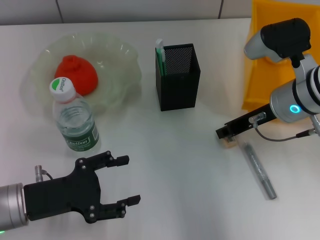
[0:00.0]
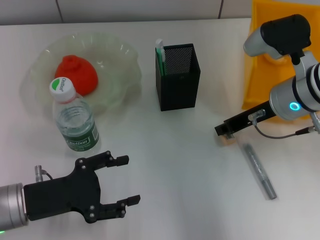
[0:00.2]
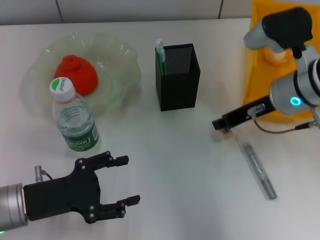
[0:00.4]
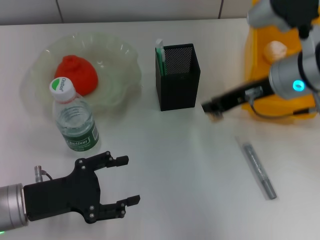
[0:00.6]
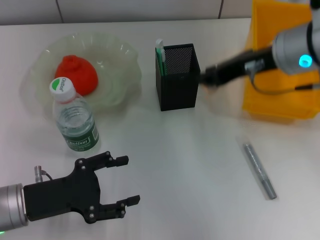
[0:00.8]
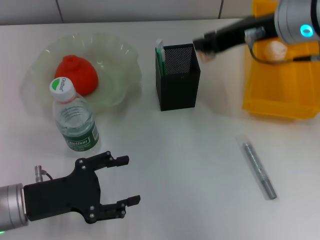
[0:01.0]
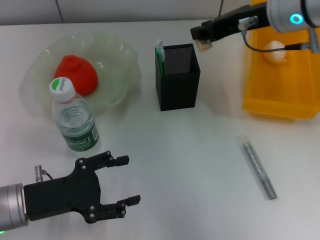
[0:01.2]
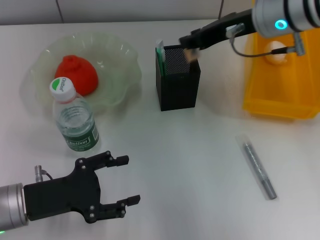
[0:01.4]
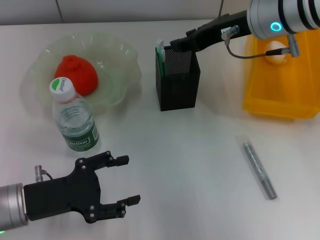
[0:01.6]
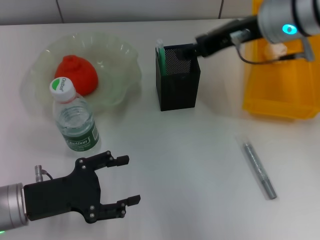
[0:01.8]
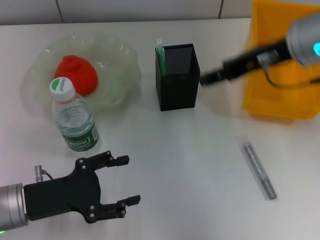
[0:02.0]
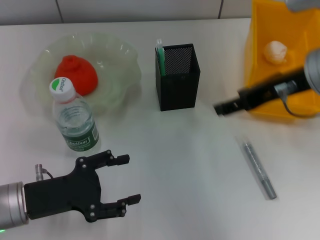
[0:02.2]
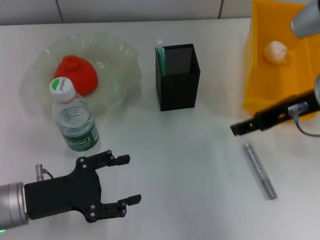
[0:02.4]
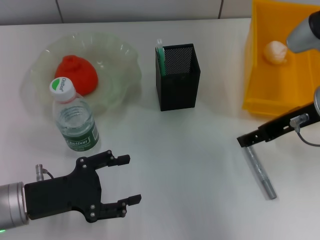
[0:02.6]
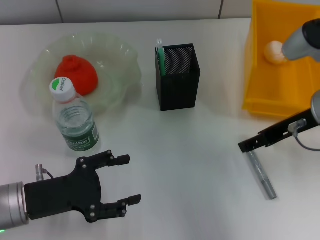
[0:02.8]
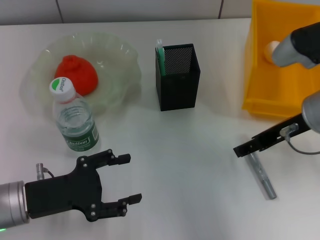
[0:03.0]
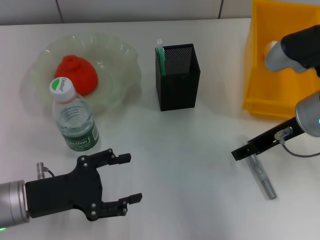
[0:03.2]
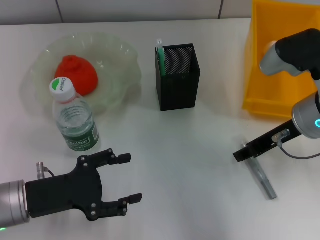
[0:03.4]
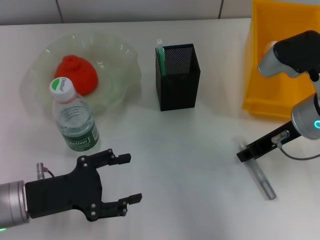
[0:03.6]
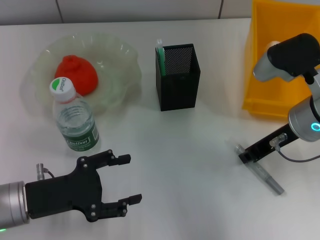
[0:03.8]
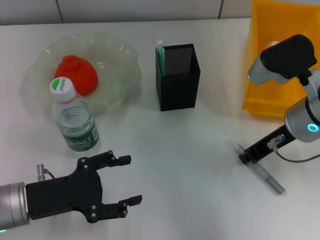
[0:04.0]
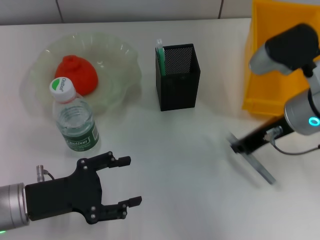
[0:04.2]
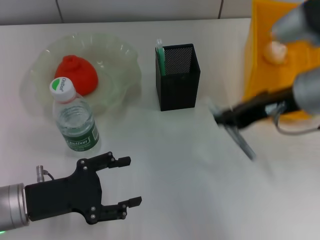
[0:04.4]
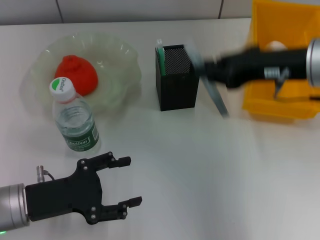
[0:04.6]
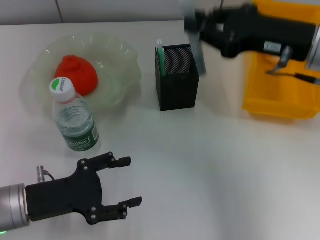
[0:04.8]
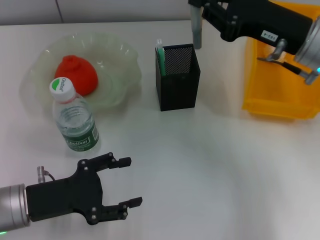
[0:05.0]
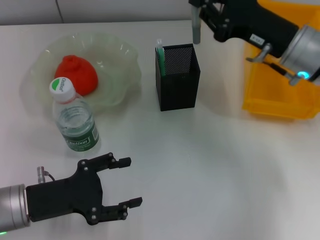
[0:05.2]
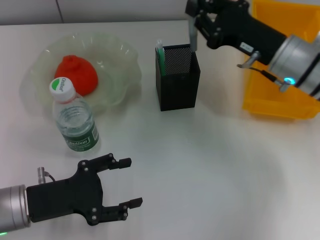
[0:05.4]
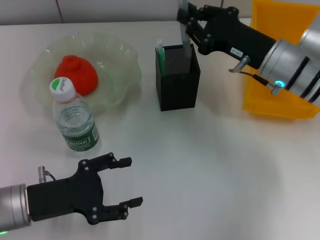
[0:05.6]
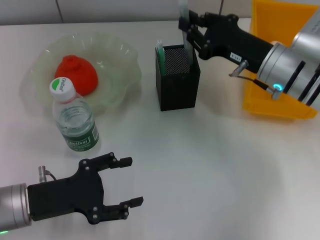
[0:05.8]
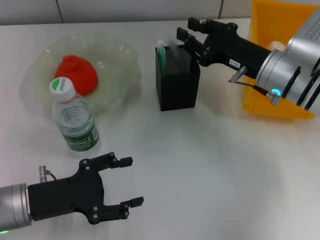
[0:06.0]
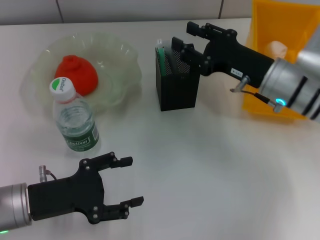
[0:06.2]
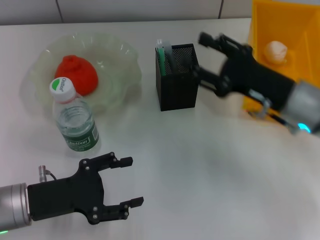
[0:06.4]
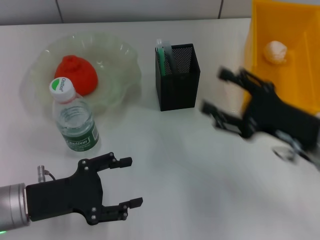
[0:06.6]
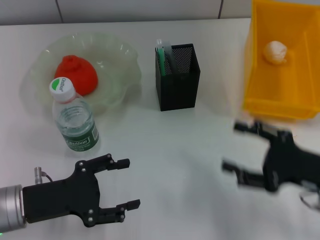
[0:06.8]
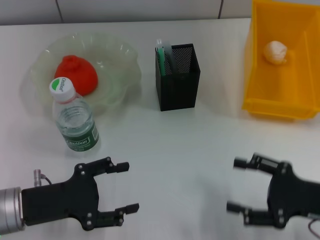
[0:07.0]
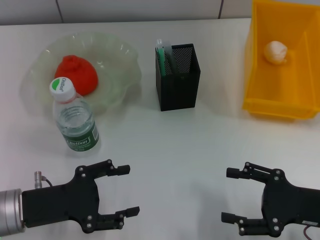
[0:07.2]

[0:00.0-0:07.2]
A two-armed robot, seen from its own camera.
Step, 0:00.6 to 0:02.0: Put the eraser into the pen holder with the right hand.
Step, 0:02.4 to 0:04.0: Grab the gray glue with the right hand.
Step, 0:04.4 to 0:06.2: Place the gray glue into the pen holder with the right hand.
0:00.0 to 0:01.4: The right gripper is displaced upward by some 10 cm.
0:01.4 to 0:02.8: The right gripper shifts roughly 10 cm backward, to the right and downward, and opens its fingers.
0:02.8 to 0:04.4: The right gripper closes up.
0:04.4 to 0:05.8: The right gripper moves downward and forward, about 10 cm.
0:05.8 to 0:07.2: The right gripper shifts about 20 cm backward and to the right, and opens up.
